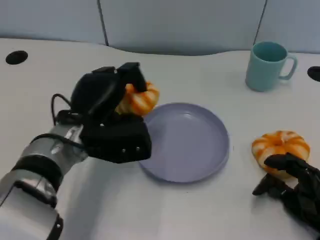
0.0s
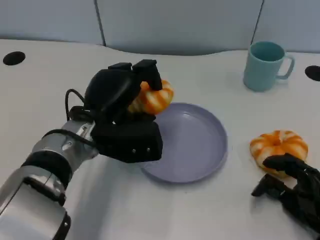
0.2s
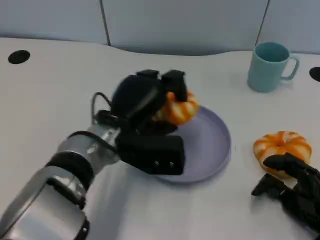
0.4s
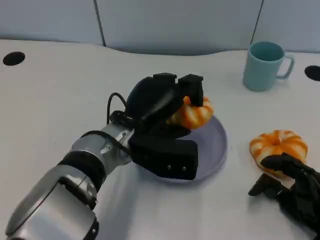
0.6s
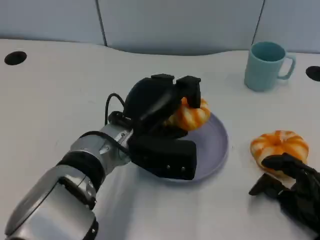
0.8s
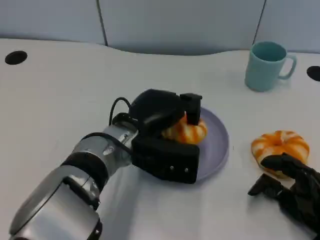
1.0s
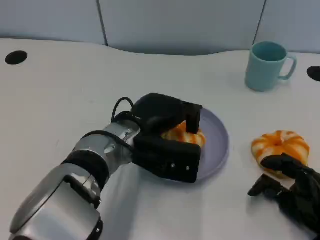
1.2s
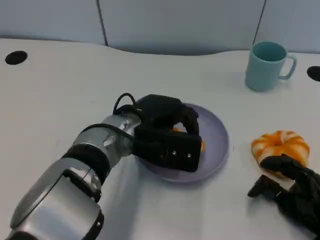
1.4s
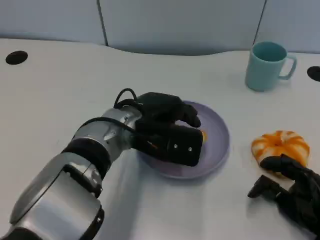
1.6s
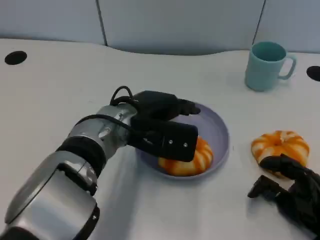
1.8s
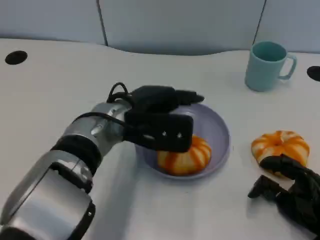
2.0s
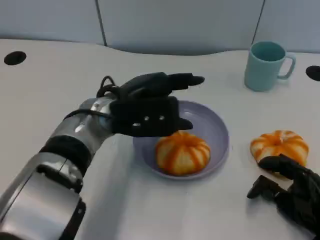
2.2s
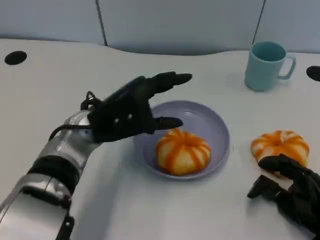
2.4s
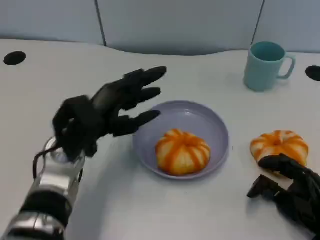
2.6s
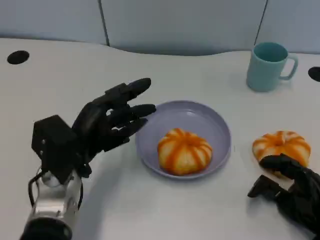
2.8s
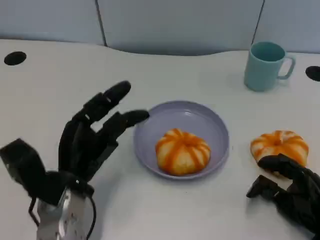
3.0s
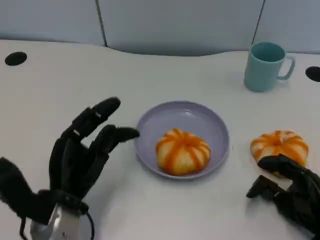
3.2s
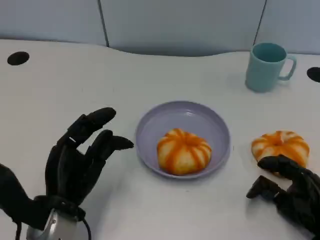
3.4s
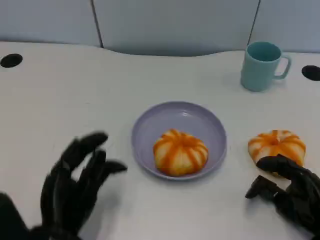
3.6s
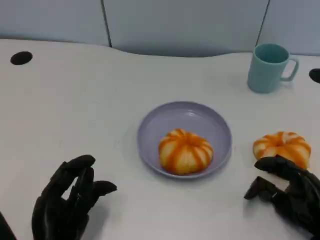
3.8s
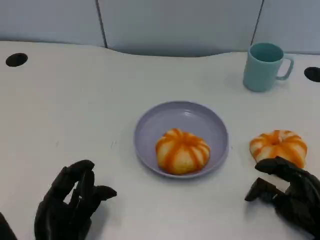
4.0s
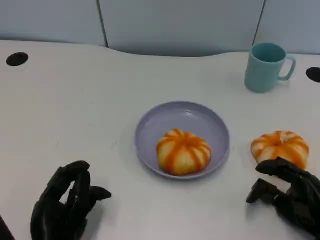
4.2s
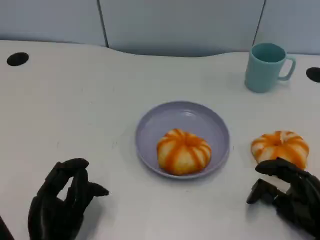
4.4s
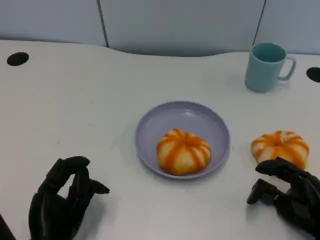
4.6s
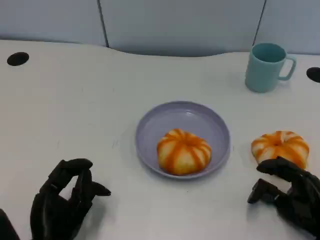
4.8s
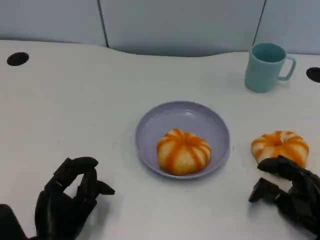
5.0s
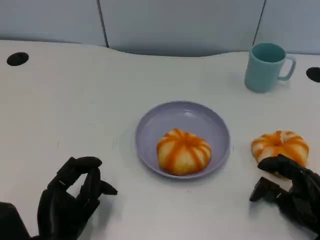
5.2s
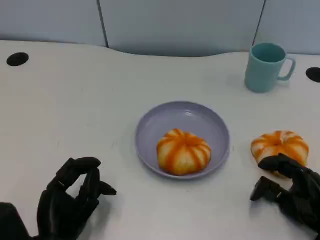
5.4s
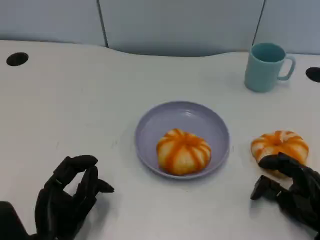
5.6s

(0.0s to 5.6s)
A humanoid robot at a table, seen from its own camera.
Task of the whole recording: Grasp the bread from the table and place it into the plate.
0.0s - 1.4s: The left hand heads to the right, covering about 5 cm.
1.4s - 2.8s: The left hand heads to the left, covering some 10 cm.
2.8s - 4.2s: The left hand is displaced backward by approximately 10 cm.
4.2s - 5.6s: The hands make only small movements.

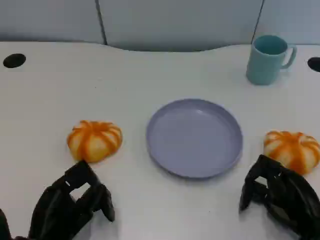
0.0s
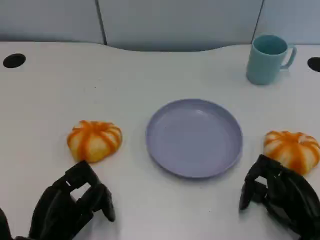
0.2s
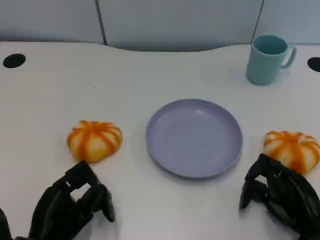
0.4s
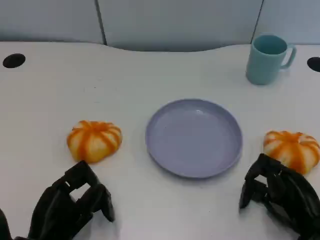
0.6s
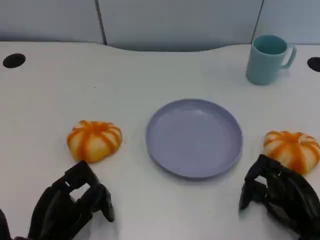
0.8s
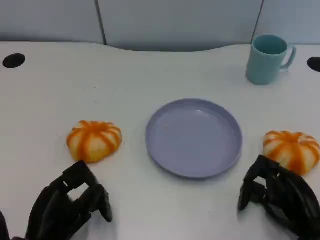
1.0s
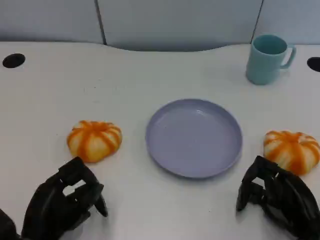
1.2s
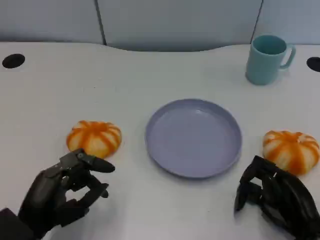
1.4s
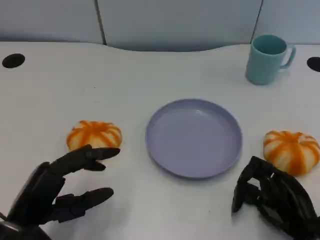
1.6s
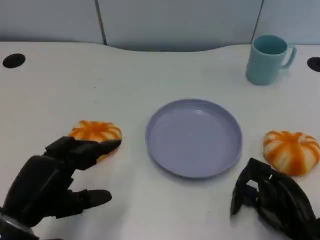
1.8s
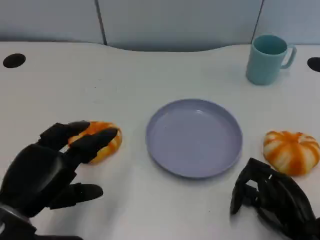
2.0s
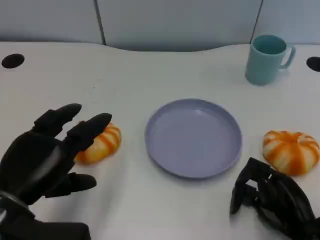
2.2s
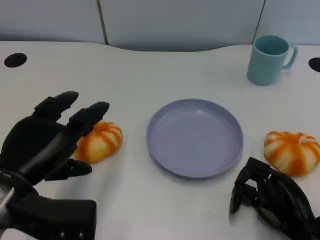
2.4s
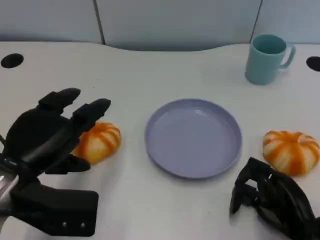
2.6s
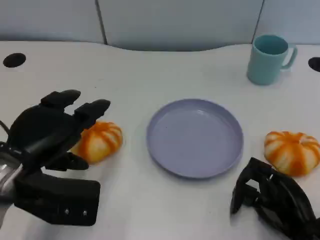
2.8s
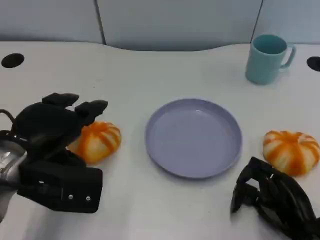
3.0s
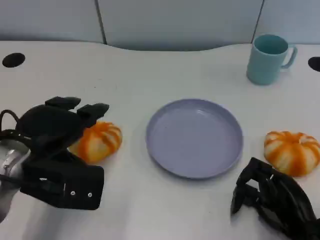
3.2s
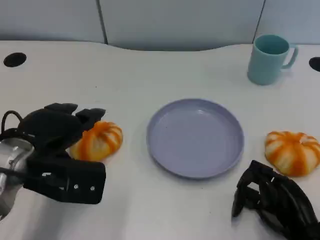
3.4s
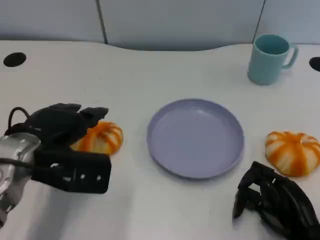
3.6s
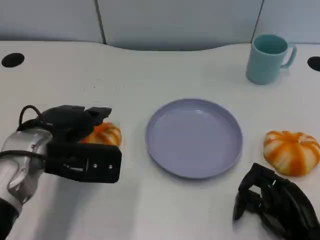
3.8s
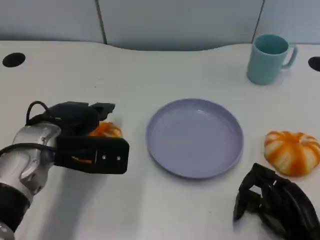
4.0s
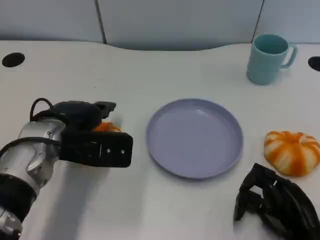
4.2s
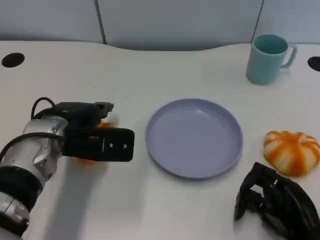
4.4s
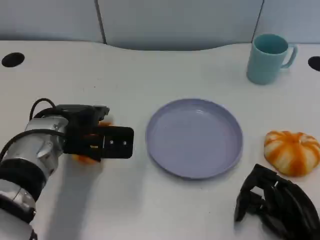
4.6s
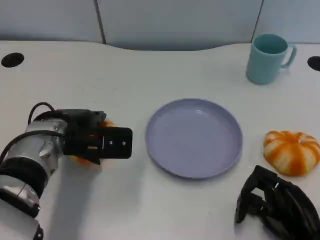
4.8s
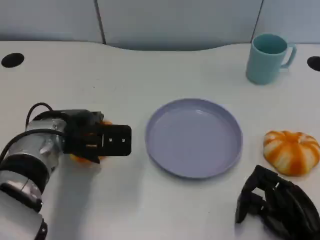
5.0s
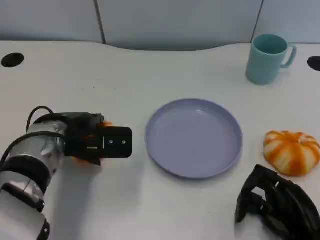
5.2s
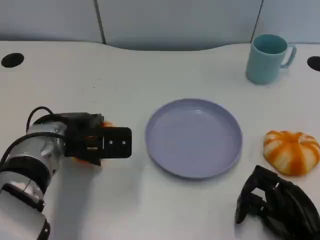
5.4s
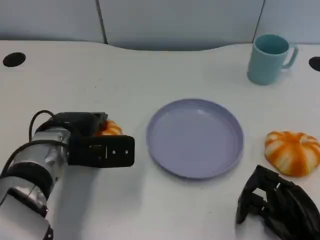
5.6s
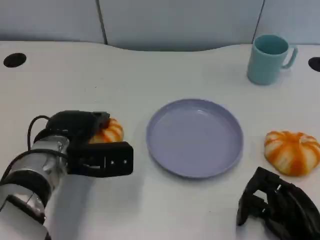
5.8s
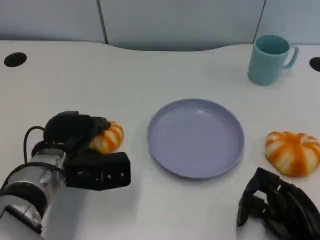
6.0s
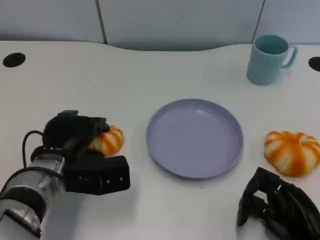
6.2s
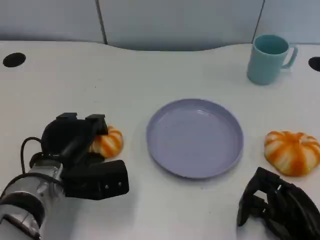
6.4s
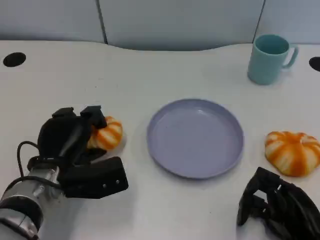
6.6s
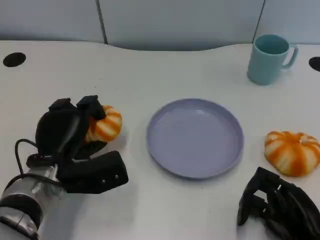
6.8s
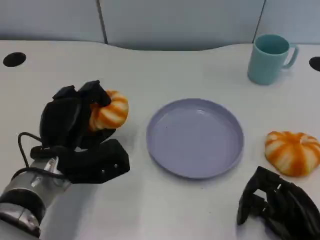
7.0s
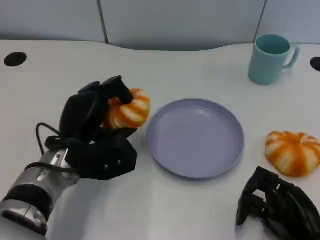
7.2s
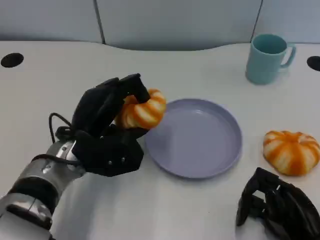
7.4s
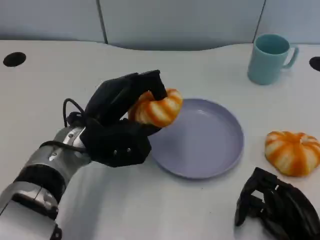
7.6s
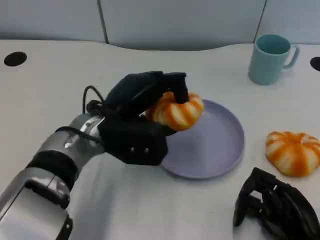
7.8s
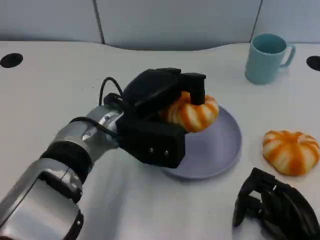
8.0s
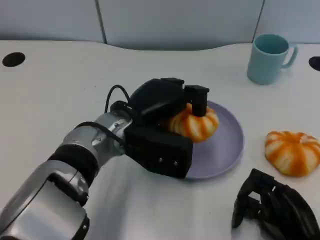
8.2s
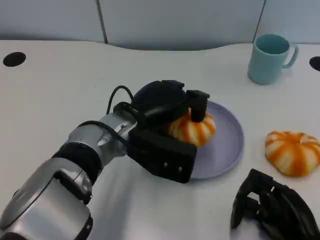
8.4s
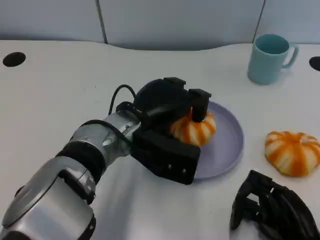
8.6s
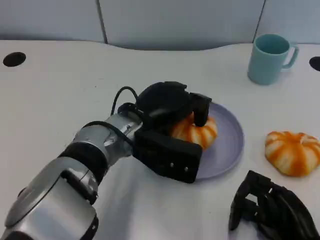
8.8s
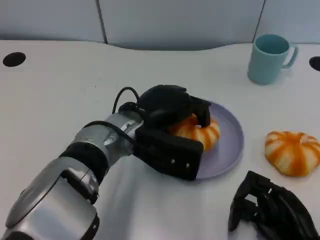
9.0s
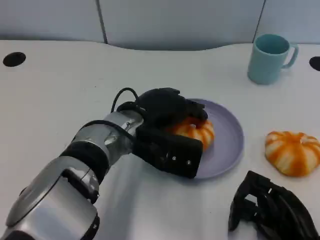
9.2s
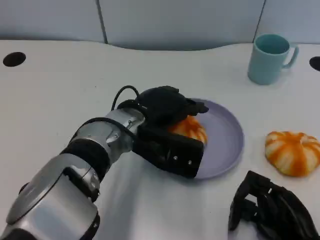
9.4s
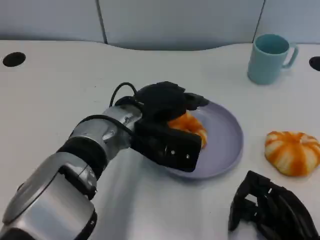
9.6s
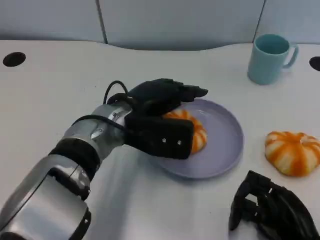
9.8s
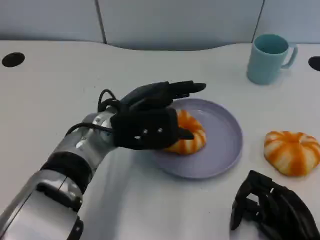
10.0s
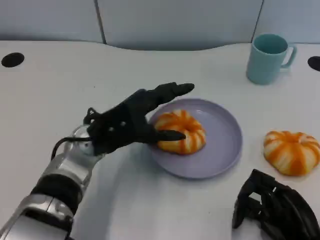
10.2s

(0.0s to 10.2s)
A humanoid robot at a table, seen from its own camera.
Task of the whole recording: Grasp the bread from the table and place it into the plate.
1.4s - 3.0s: The left hand moves upward and forward, about 10 cm.
3.0s - 4.4s: The left hand heads forward, covering about 5 cm.
4.4s - 5.8s: There are only small adjustments of the hands.
7.2s - 8.8s: The left hand travels to the right by about 10 cm.
8.8s - 10.2s: The left hand is displaced to the left by approximately 5 cm.

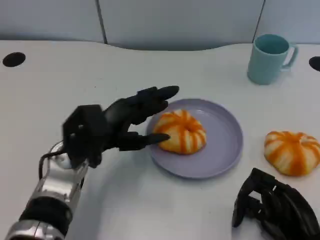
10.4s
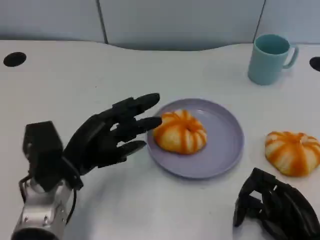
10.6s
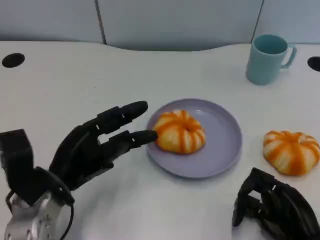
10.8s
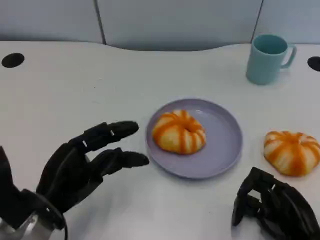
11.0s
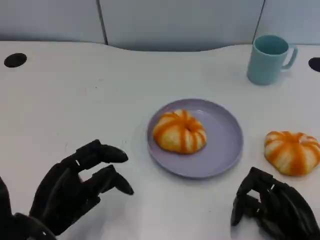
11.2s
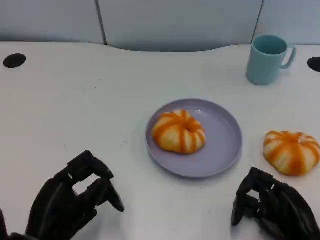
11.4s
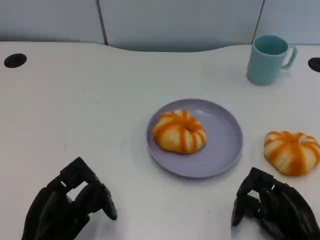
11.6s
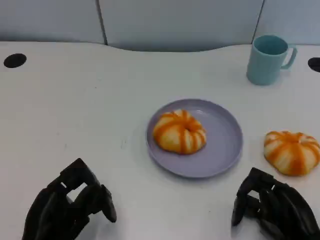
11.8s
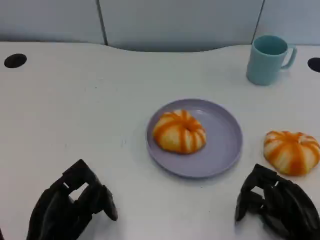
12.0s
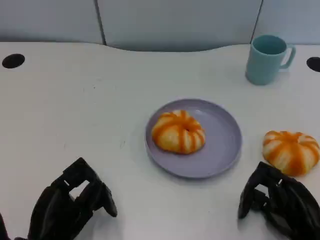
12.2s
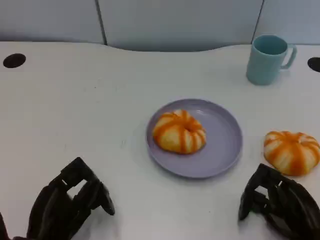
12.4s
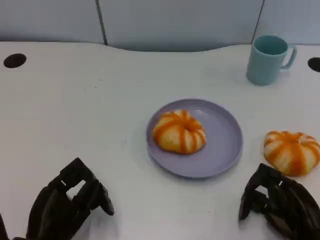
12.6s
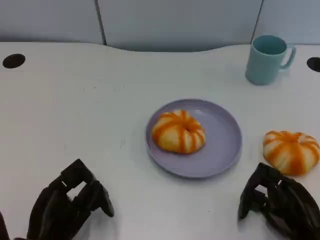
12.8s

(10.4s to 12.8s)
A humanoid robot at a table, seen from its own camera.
Task of the whole recording: Grasp the bread from the table and place it into the plate.
10.4s - 11.6s: The left hand is displaced backward and to the left by roughly 15 cm.
11.6s - 12.8s: The hands move only a little.

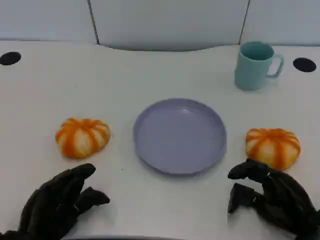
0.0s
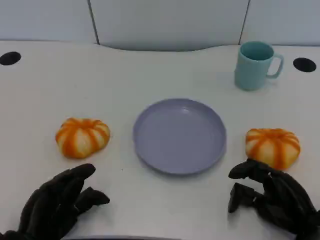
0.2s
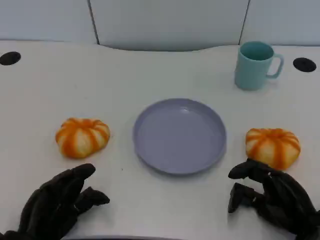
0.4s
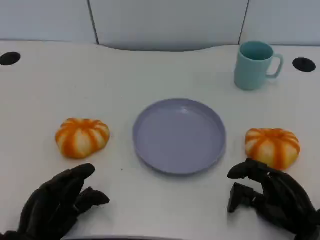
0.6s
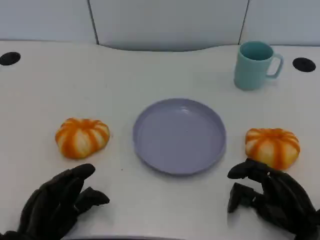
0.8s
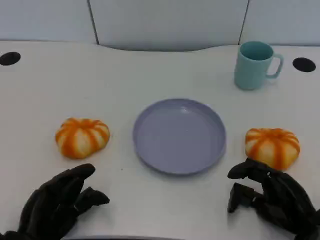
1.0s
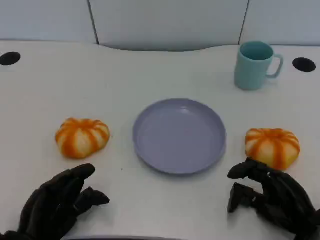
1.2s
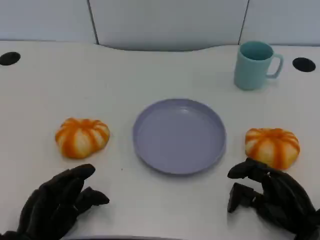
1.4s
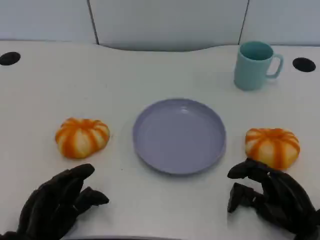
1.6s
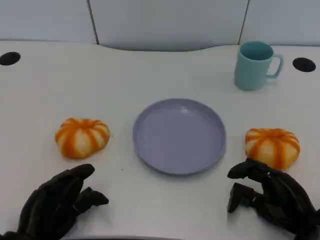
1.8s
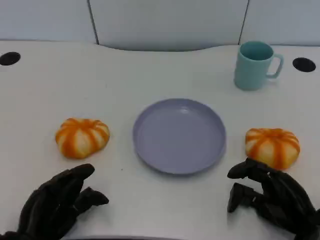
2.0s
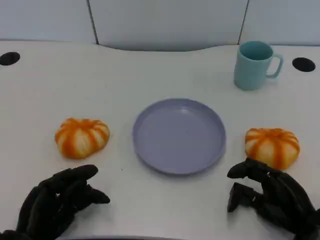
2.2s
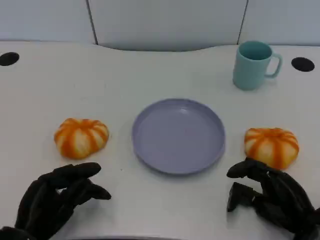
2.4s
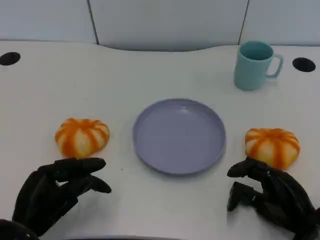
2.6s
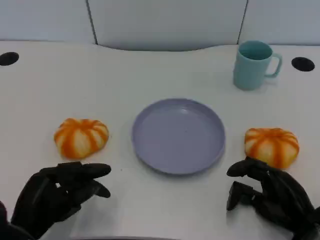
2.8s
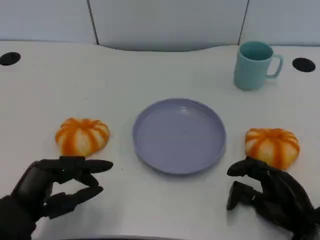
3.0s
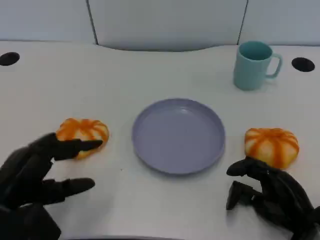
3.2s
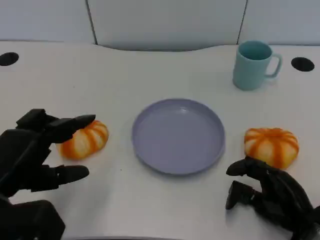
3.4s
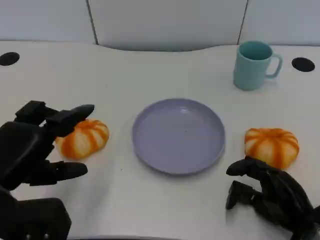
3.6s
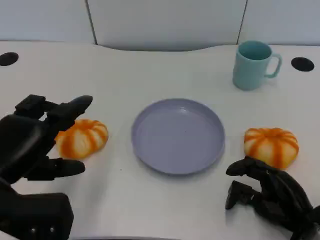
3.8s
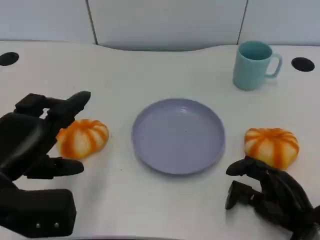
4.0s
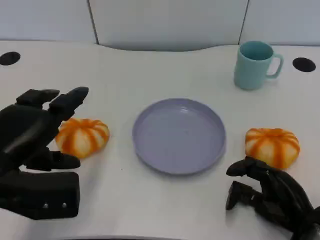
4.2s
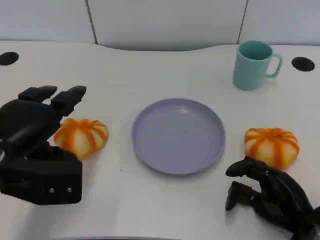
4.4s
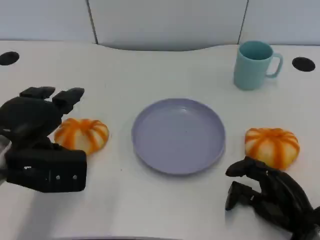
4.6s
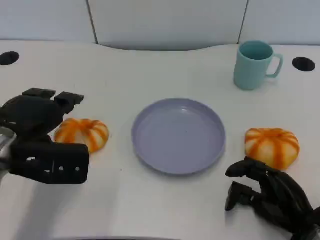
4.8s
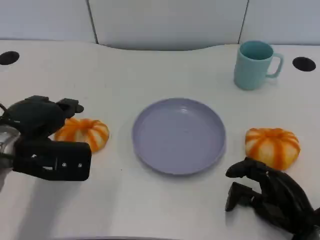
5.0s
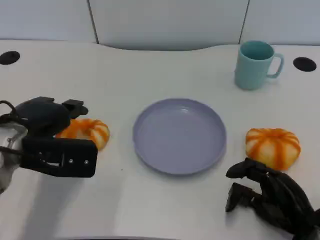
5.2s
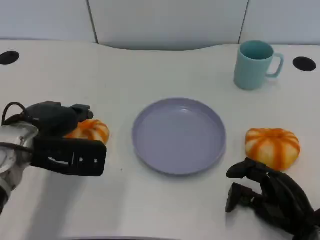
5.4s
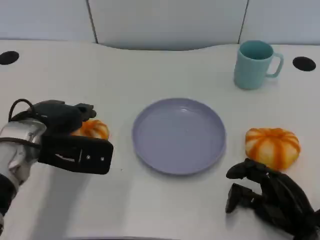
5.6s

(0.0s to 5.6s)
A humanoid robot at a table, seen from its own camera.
Task of the whole recording: Grasp the bread from the table and place it into the plate.
0.0s - 1.4s: Neither hand changes place.
2.8s - 4.2s: The left hand is displaced upward and forward by some 10 cm.
4.2s - 5.6s: The left hand goes roughly 5 cm forward.
